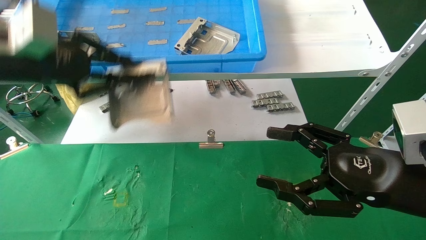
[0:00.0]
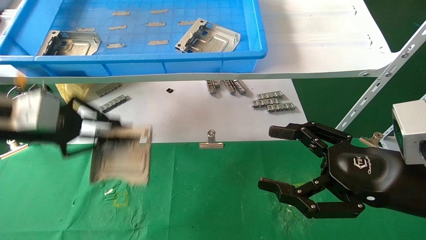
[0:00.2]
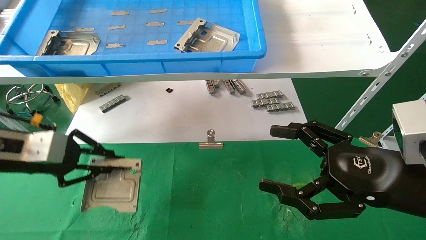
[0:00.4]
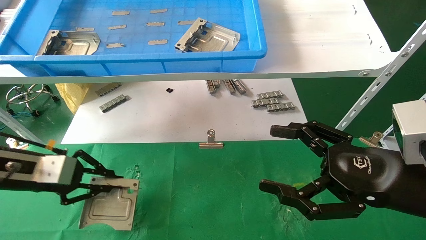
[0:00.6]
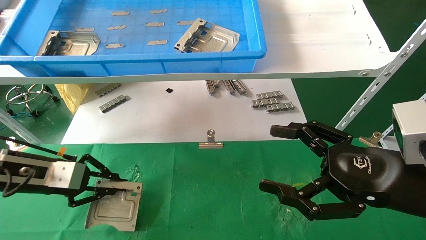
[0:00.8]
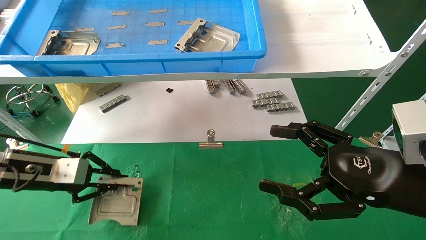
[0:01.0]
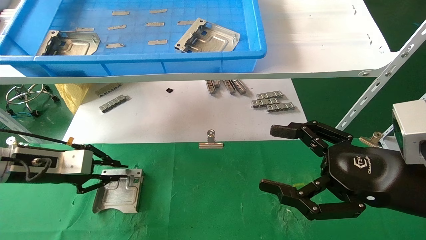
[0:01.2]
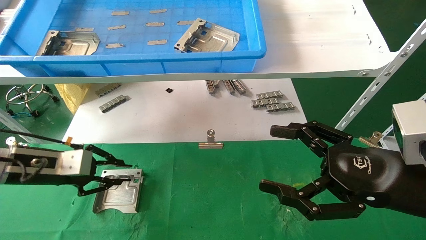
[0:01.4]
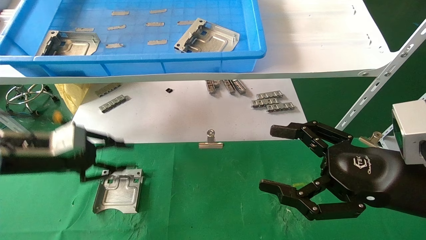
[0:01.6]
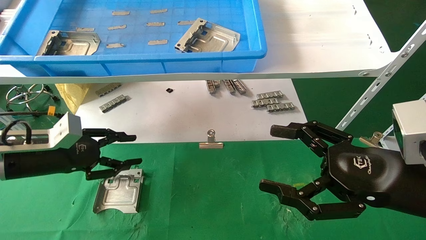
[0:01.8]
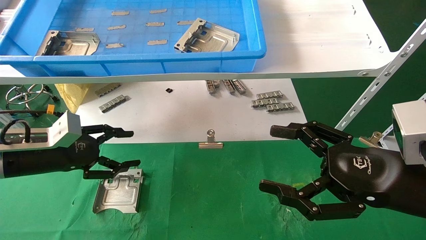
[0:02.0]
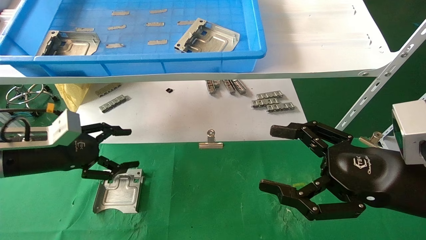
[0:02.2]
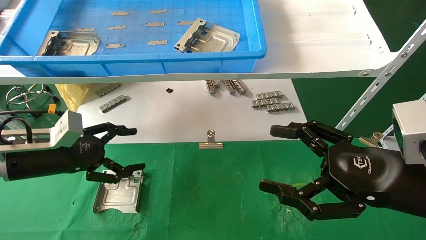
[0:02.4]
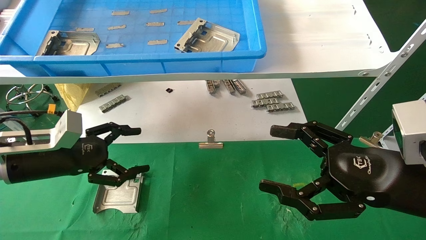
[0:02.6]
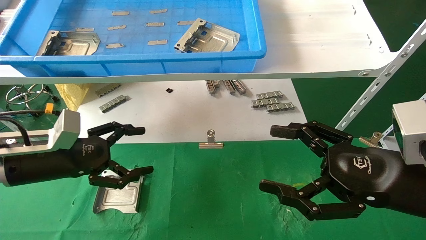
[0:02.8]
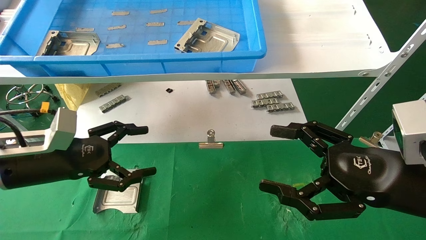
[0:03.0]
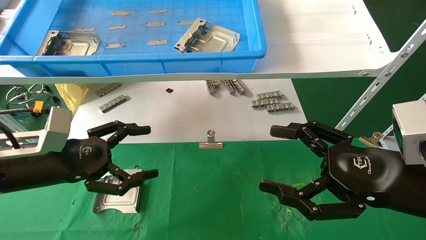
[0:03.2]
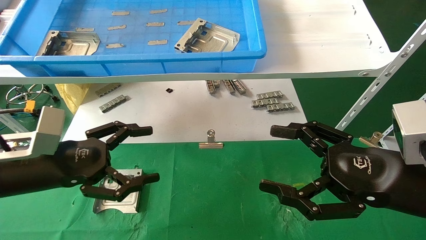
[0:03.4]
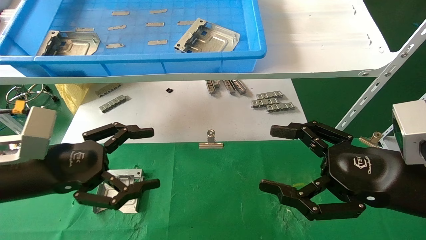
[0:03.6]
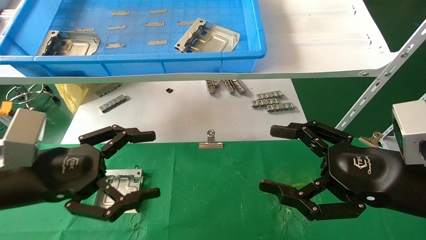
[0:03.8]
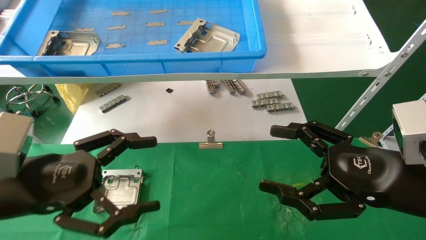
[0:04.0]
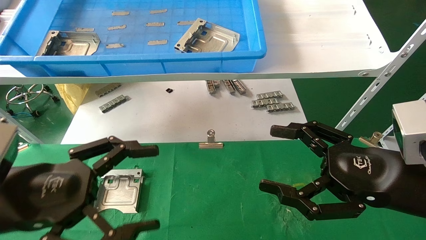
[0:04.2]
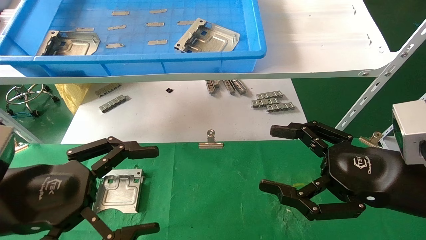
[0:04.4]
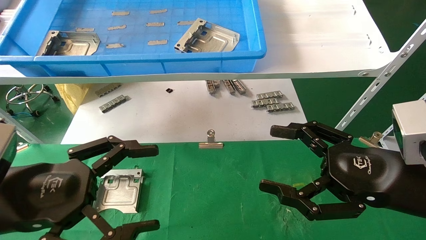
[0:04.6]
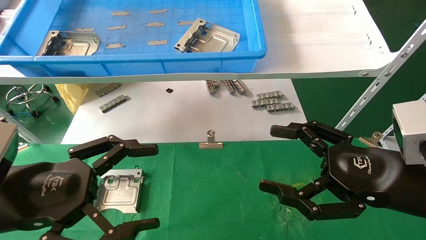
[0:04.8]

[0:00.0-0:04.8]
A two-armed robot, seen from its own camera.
Task of the whole recording: use the mechanical arm to pick up the parts and place them on the table.
Step, 0:00.0 to 0:02.4: Place the hard drive bracket into the box.
0:00.0 to 0:01.6: The left gripper shifts approximately 15 cm downward.
0:01.6 to 0:03.2: The left gripper is displaced backward and to the right by approximately 10 cm, and opens up.
0:03.2 to 0:04.8: The left gripper is displaced backward by about 10 cm.

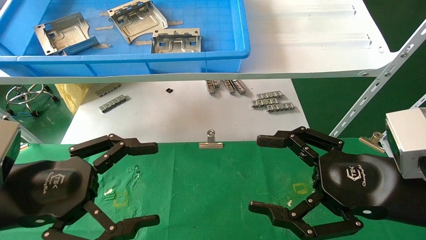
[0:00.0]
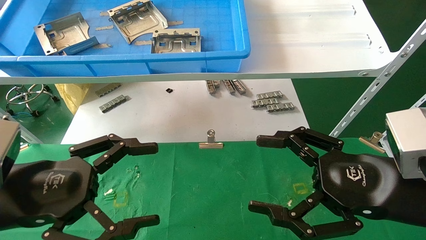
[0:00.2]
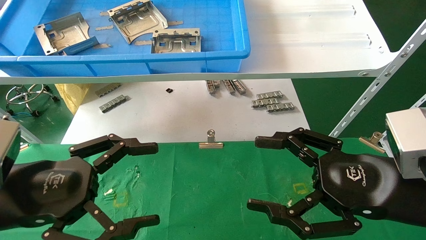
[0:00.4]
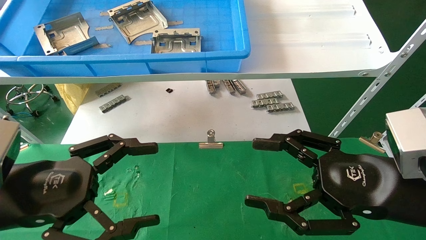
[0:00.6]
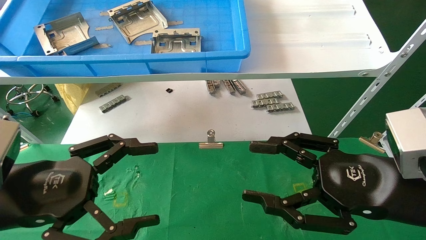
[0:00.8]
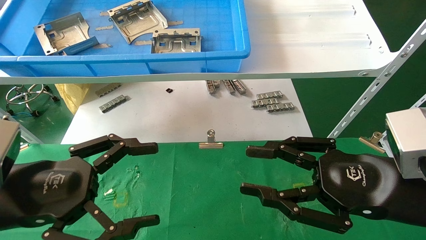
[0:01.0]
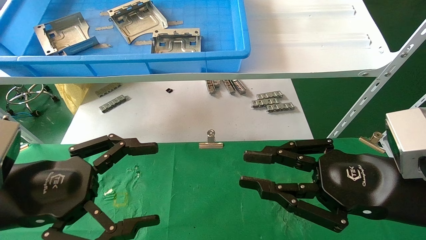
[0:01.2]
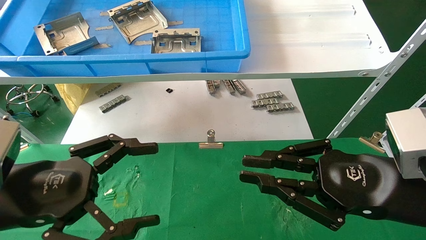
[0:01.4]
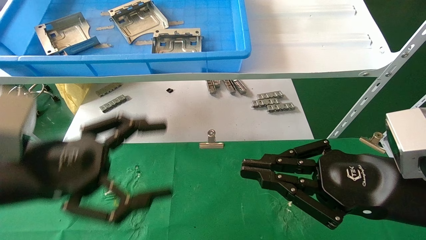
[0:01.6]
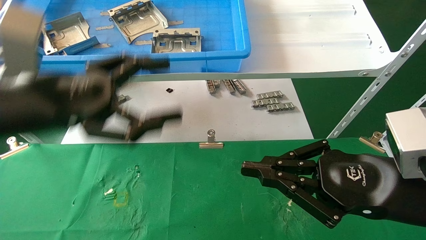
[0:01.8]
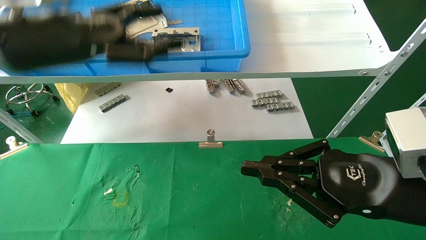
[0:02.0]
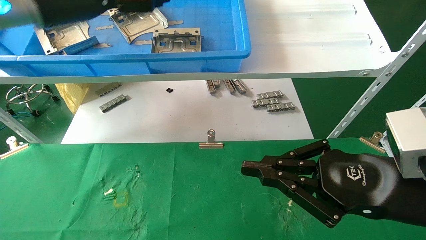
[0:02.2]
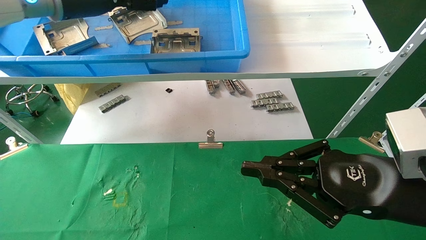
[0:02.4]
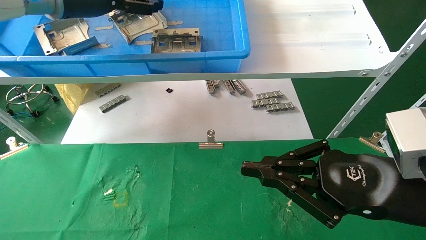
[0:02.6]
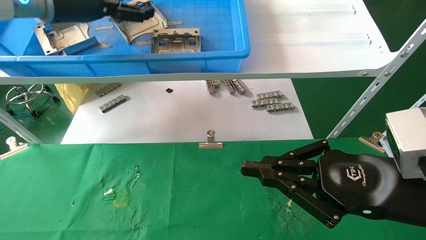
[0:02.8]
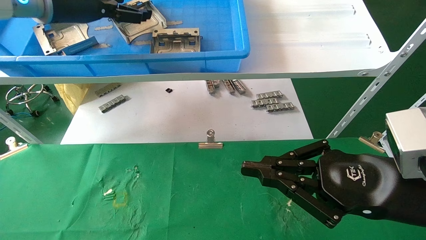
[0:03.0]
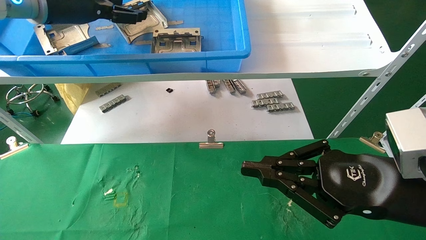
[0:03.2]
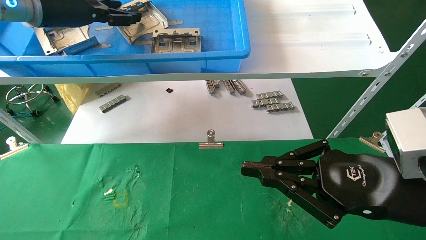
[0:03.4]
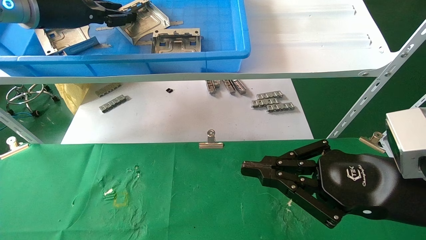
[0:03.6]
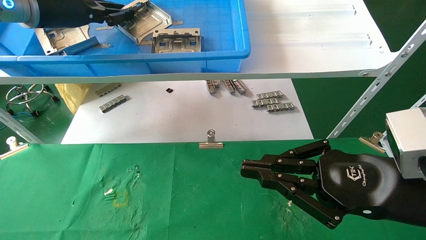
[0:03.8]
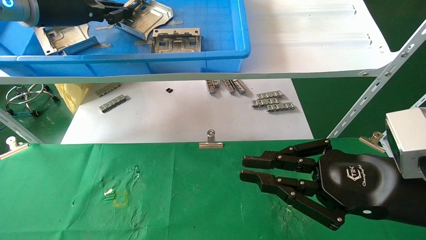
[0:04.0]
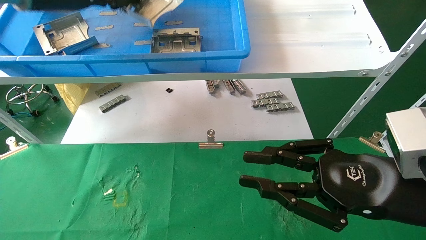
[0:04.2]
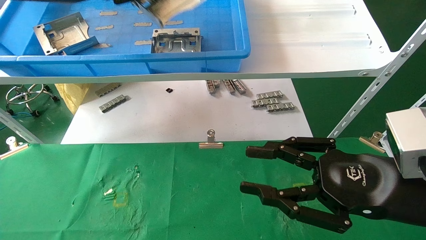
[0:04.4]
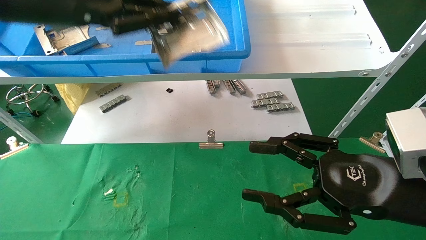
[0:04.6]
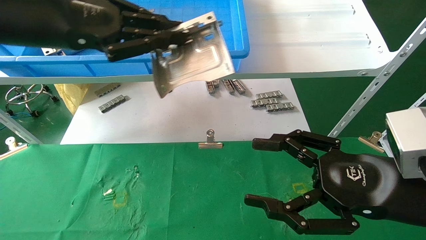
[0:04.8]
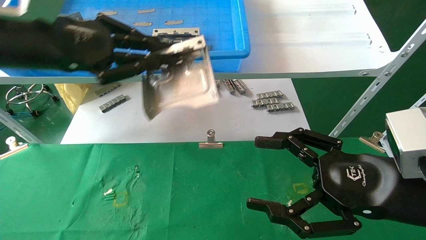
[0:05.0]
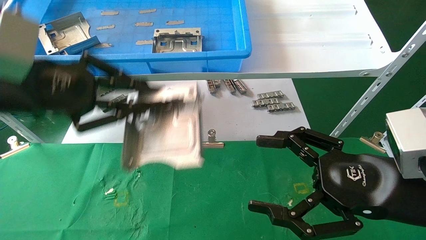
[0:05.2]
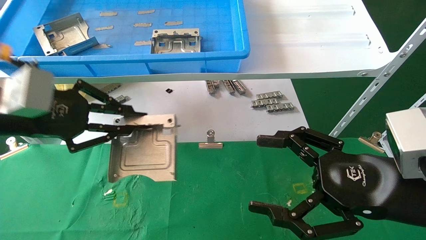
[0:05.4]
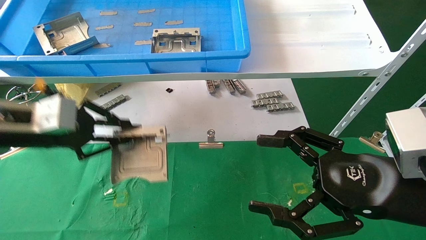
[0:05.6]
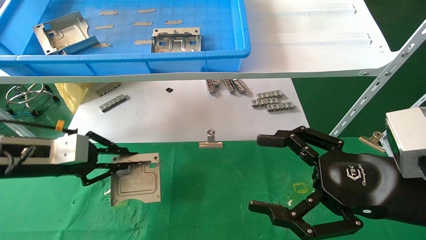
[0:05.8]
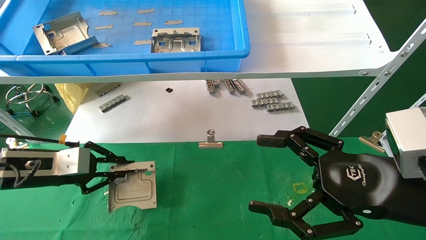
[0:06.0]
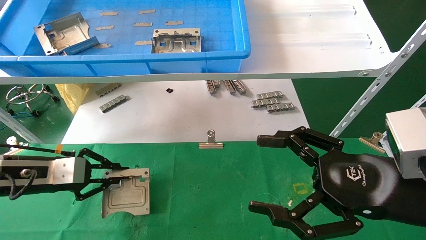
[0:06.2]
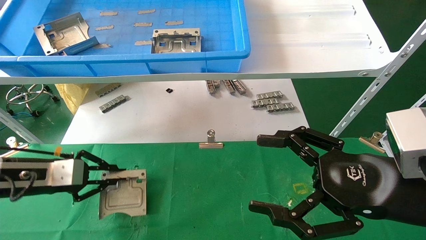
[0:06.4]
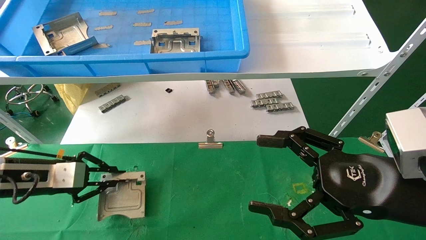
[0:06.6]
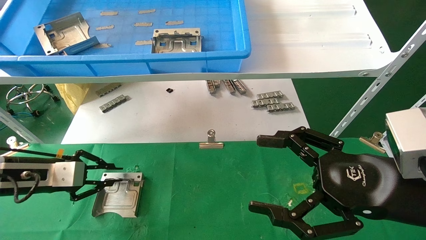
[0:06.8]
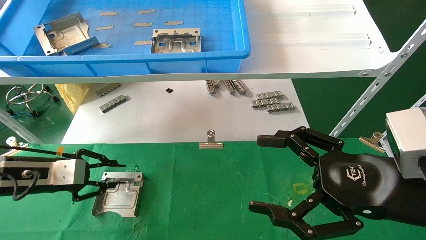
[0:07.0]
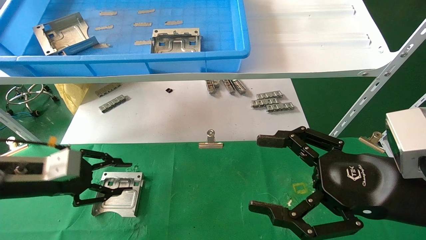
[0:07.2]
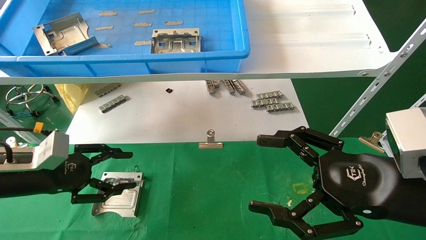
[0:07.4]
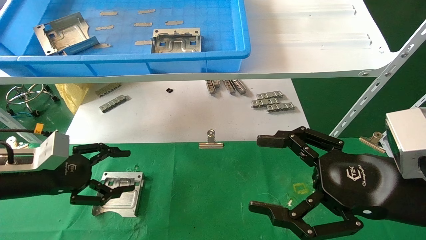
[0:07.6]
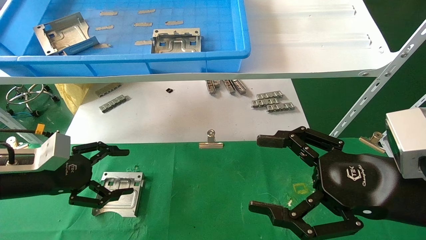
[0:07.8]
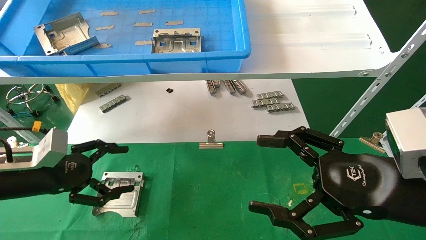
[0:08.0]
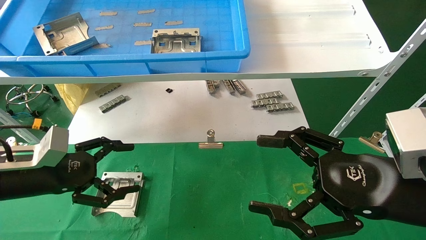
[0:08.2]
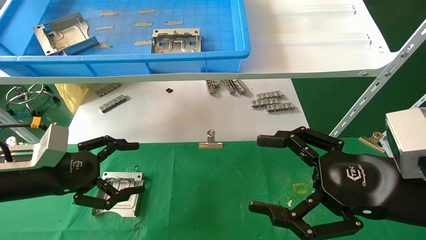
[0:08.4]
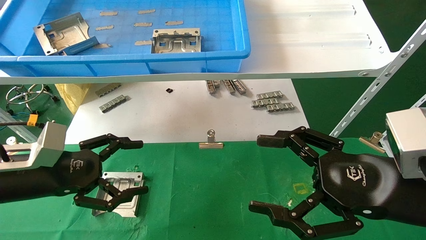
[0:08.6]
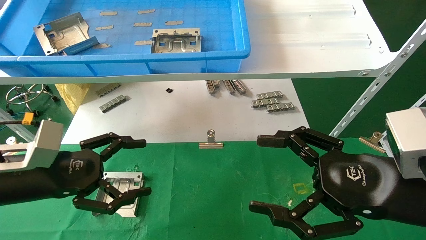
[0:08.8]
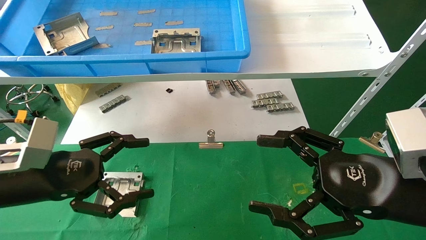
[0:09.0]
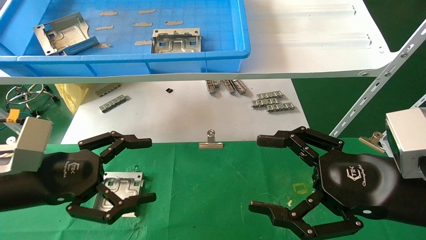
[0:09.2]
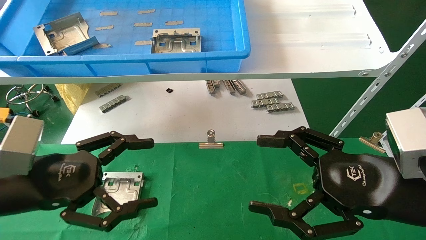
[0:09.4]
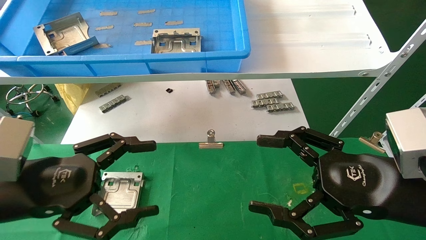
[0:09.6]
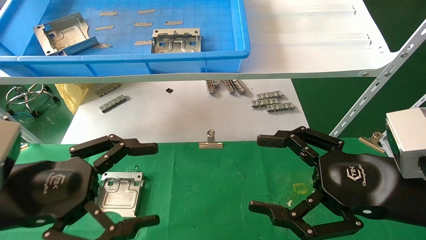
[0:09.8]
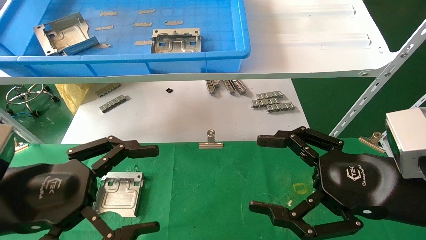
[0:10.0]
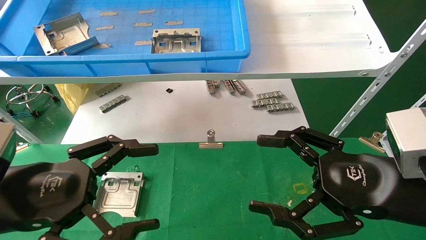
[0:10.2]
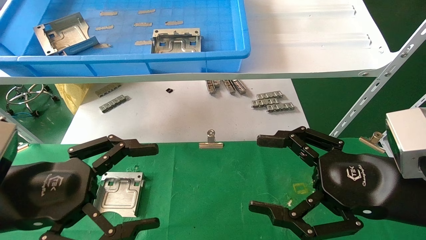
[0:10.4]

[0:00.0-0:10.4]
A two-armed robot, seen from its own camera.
Task of the whole recording: use the mechanical arm to pick up the parts and place them on the table.
Step, 0:01.8 to 0:03.8: Pick up the hard drive bracket from the feeding area.
Step, 0:04.0 to 0:06.6: Place the hard drive bracket into the box.
0:00.0 to 0:01.4: The right gripper closes up.
0:01.4 to 0:03.0: The left gripper moves upward and forward, about 30 cm.
0:03.0 to 0:04.4: The left gripper heads backward, covering some 5 cm, and closes up.
0:04.4 to 0:06.0: The right gripper opens its fingers, while the left gripper is displaced downward by approximately 30 cm.
0:06.0 to 0:07.4: The left gripper opens its fingers.
0:07.4 to 0:09.0: The left gripper shifts roughly 10 cm backward and to the right, and opens up.
0:09.0 to 0:10.4: The left gripper shifts some 5 cm backward.
